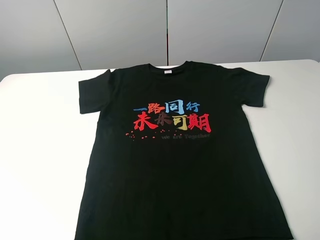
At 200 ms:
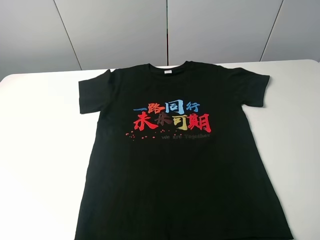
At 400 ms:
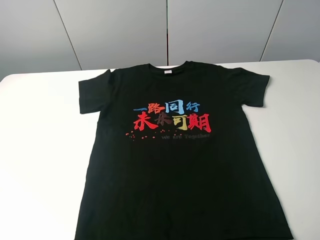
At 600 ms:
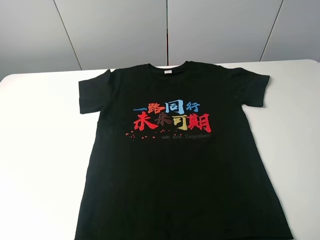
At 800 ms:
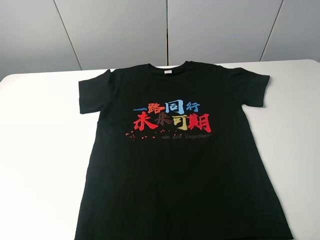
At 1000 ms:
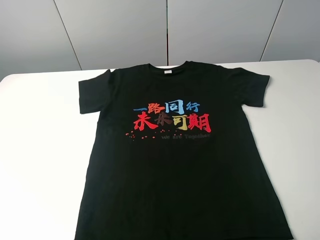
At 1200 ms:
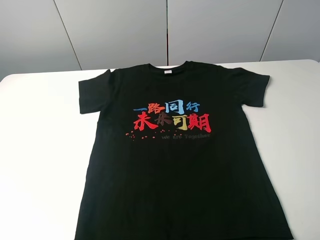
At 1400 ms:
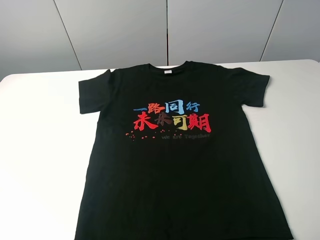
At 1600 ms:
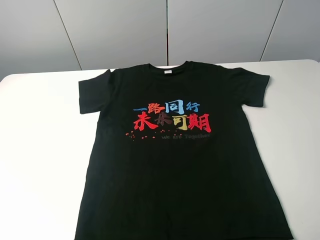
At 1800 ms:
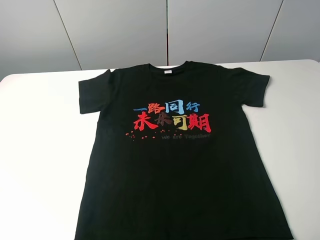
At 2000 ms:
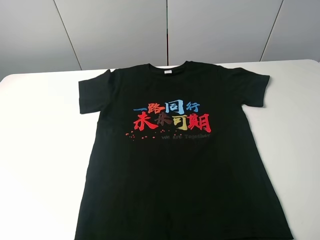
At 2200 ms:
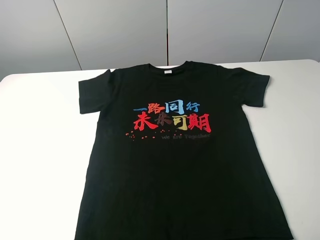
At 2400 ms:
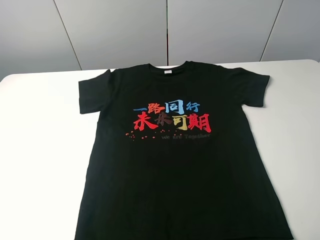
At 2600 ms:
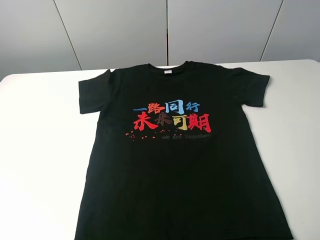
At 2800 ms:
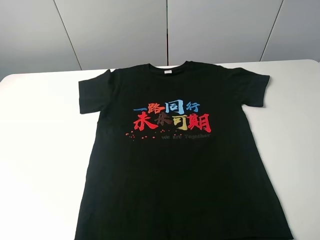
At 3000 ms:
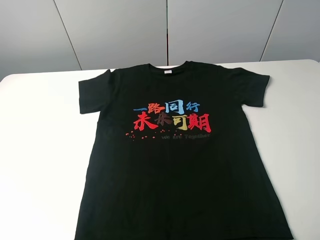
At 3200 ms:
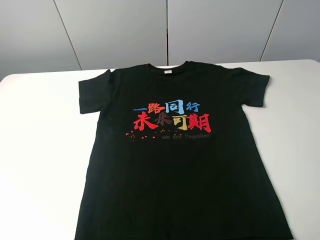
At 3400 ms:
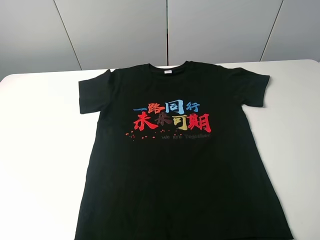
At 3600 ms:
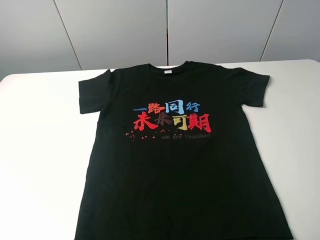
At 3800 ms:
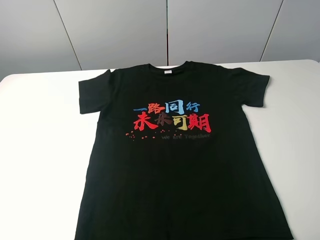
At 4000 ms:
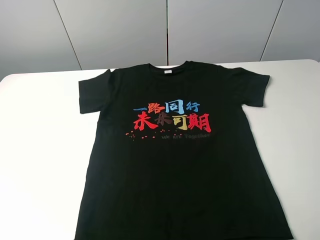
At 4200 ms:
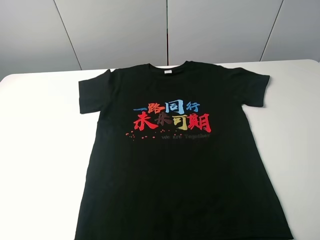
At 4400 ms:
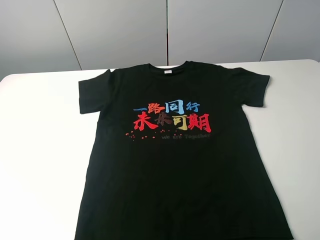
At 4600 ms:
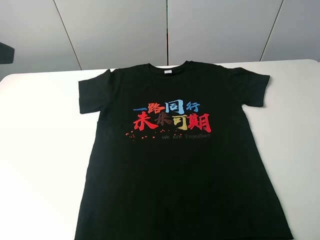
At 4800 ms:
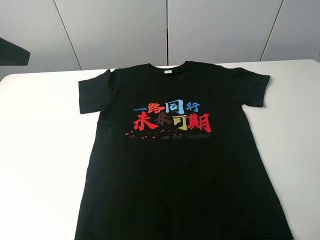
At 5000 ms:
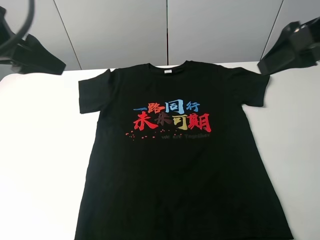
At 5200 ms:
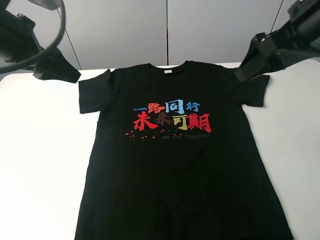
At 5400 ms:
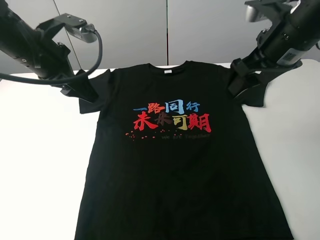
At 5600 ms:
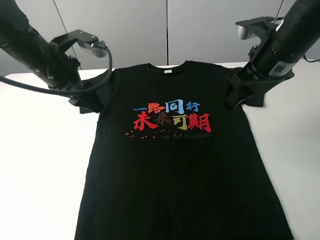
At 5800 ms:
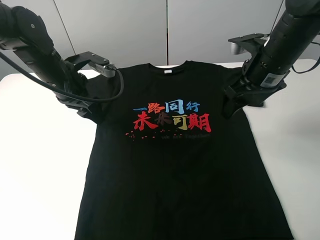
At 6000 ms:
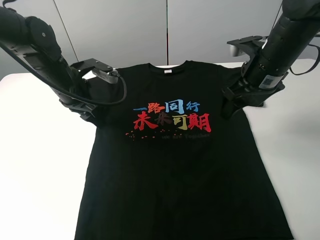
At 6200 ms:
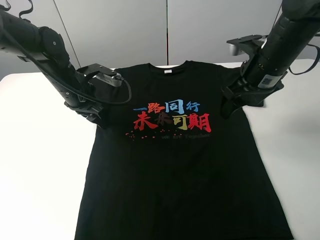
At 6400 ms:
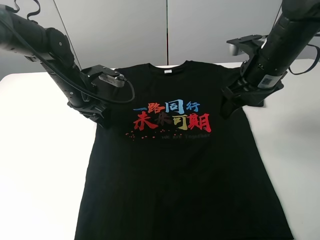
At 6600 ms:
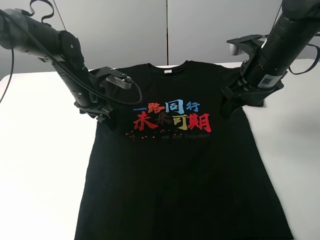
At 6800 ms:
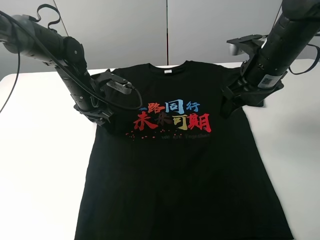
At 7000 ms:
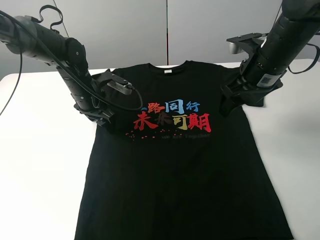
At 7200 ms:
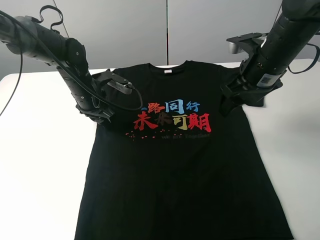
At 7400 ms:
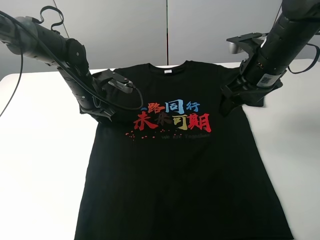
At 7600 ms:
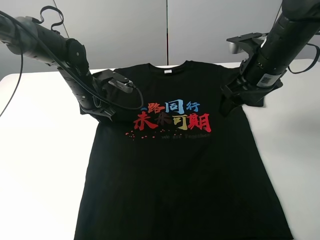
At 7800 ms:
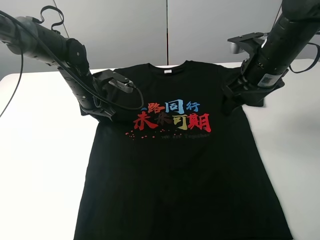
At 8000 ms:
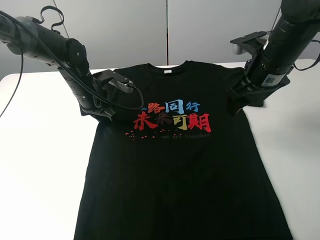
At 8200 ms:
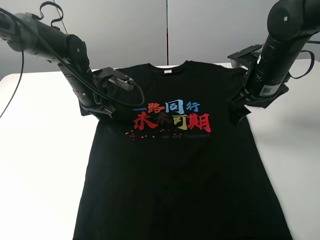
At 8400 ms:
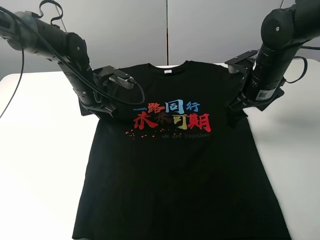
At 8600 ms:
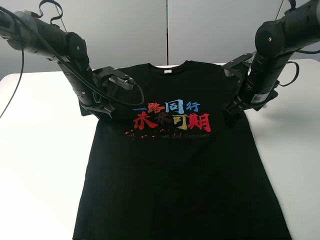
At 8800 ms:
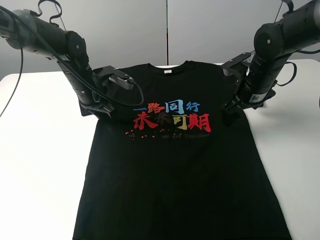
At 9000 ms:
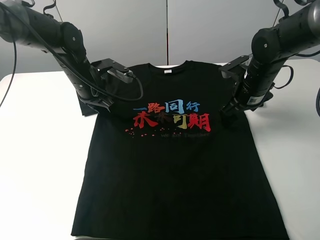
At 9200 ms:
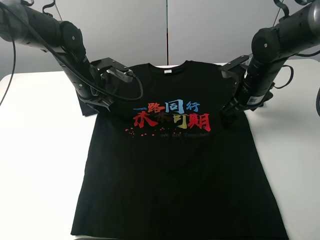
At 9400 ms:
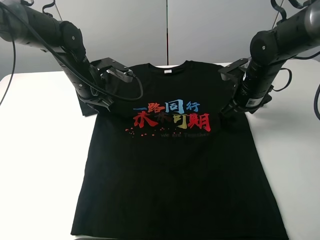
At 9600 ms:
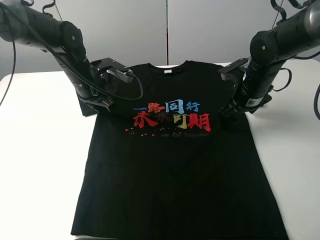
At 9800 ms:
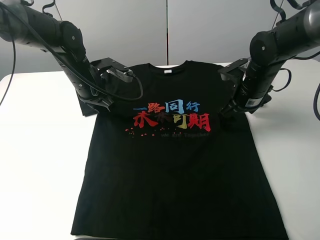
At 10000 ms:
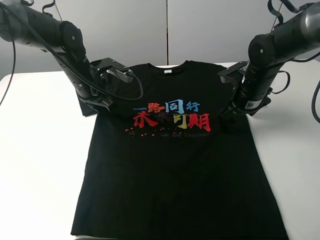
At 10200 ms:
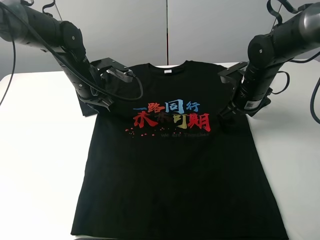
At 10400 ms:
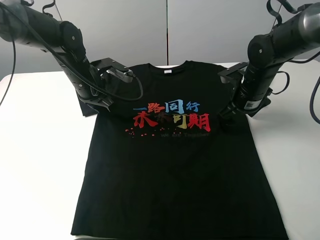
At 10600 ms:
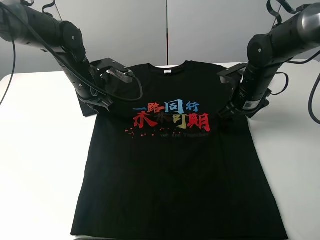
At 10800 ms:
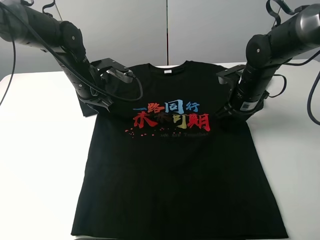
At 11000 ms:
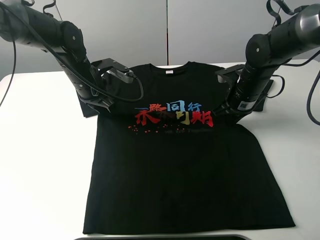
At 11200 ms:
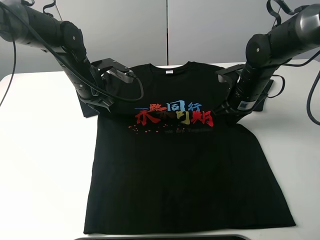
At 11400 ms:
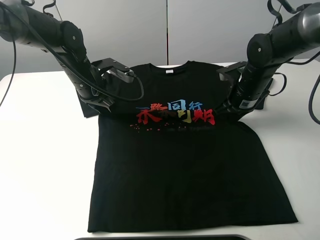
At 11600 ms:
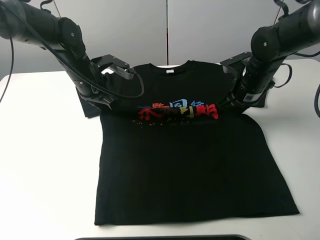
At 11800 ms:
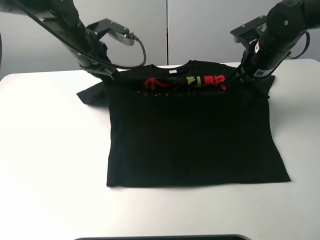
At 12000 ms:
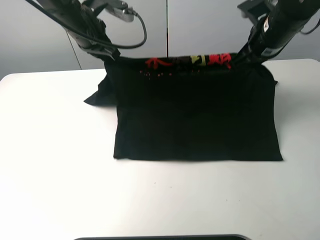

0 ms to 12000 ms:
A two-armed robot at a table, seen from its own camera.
Task of the whole recording: fold the clothes on the table.
0 ms to 3000 ms: Both grippers stay about where they are.
4400 ms to 6000 ms: The right gripper moves forward and downward, some 25 cm, while the left gripper moves forward, downward and to the right, roughly 30 cm.
6000 ms to 7600 ms: The left gripper shifts by roughly 5 cm, and closes up.
7600 ms to 9000 ms: The right gripper is displaced downward by roughly 10 cm.
9000 ms to 10400 ms: The grippers stay close to where they were, moving slightly.
10400 ms to 12000 ms: The two grippers go some 15 cm upward. The right gripper closes up.

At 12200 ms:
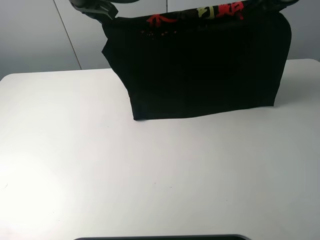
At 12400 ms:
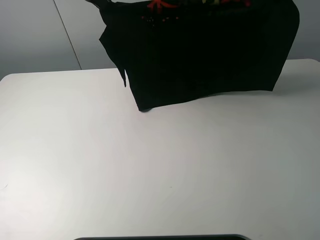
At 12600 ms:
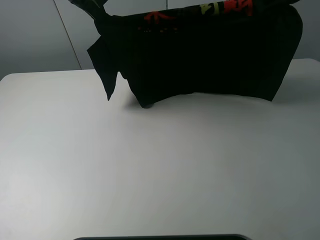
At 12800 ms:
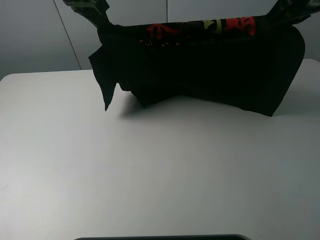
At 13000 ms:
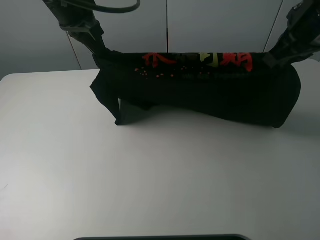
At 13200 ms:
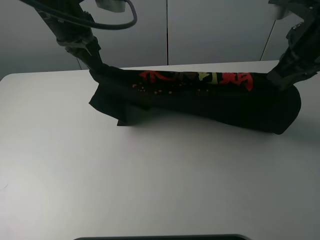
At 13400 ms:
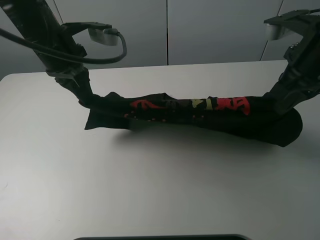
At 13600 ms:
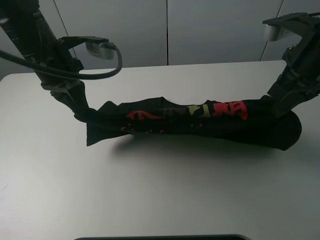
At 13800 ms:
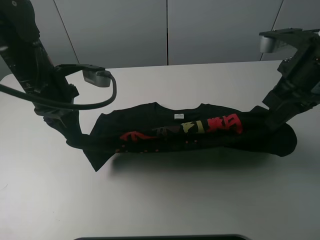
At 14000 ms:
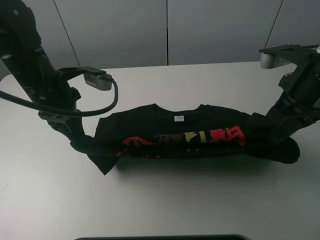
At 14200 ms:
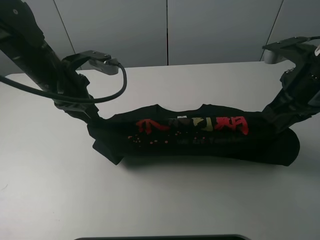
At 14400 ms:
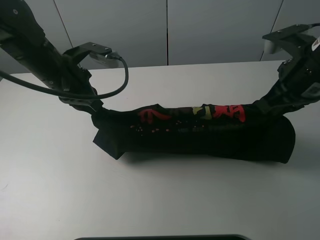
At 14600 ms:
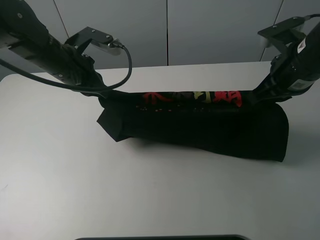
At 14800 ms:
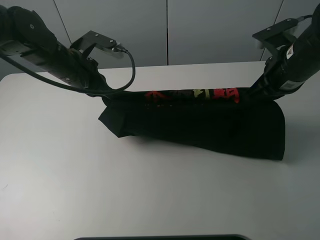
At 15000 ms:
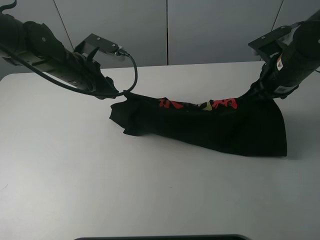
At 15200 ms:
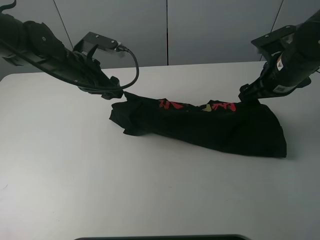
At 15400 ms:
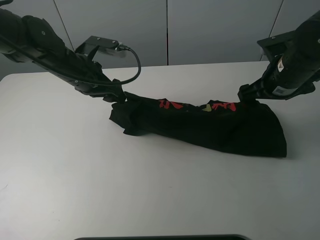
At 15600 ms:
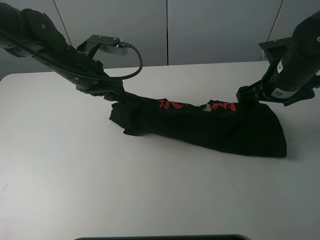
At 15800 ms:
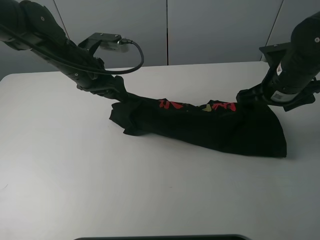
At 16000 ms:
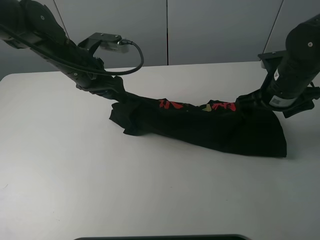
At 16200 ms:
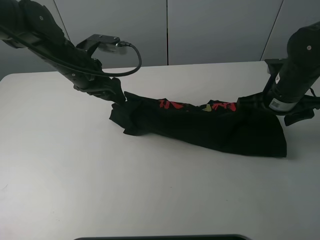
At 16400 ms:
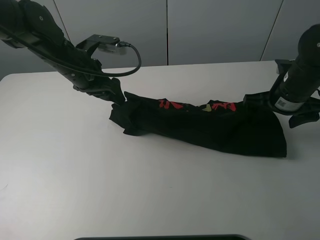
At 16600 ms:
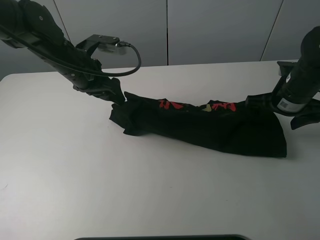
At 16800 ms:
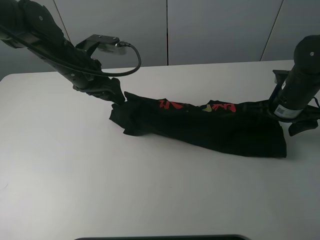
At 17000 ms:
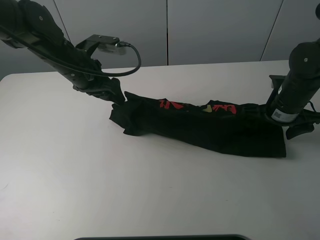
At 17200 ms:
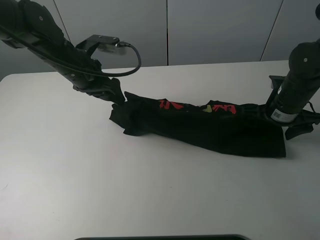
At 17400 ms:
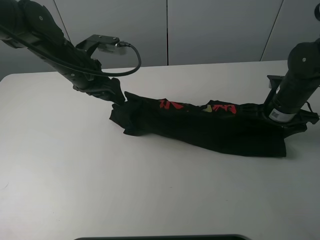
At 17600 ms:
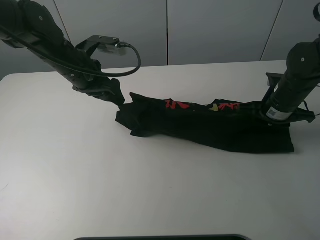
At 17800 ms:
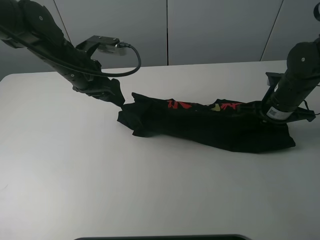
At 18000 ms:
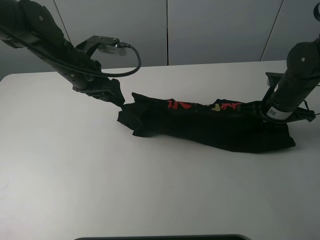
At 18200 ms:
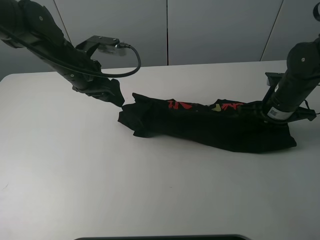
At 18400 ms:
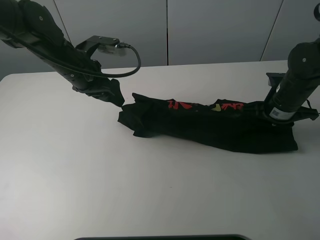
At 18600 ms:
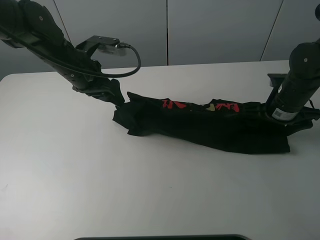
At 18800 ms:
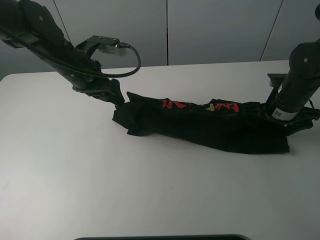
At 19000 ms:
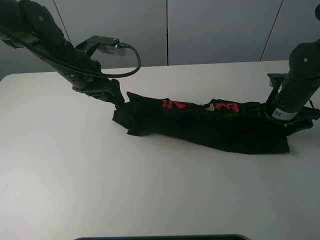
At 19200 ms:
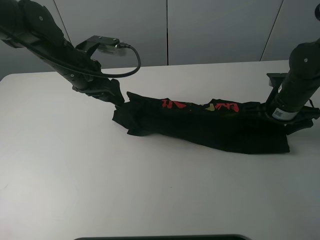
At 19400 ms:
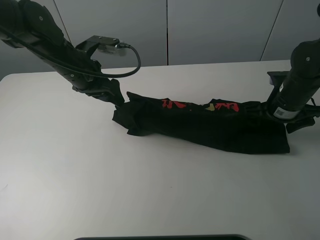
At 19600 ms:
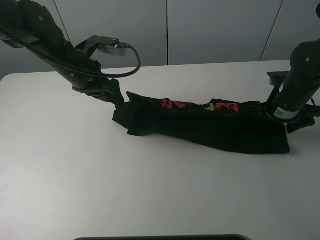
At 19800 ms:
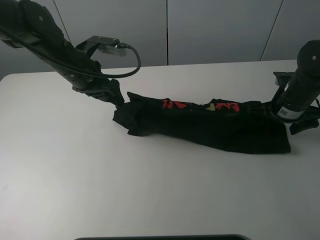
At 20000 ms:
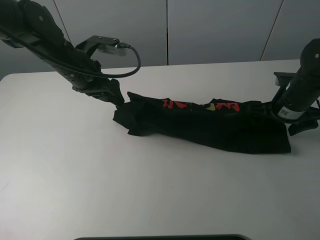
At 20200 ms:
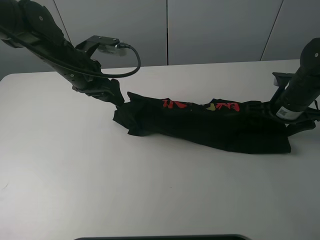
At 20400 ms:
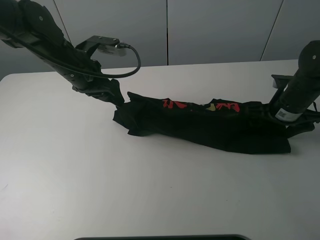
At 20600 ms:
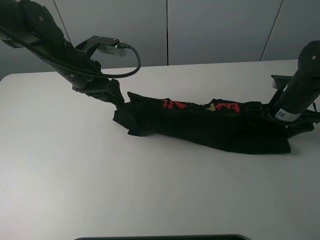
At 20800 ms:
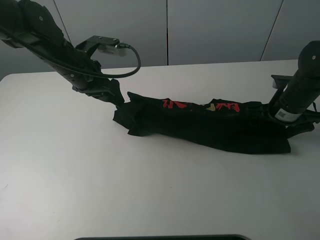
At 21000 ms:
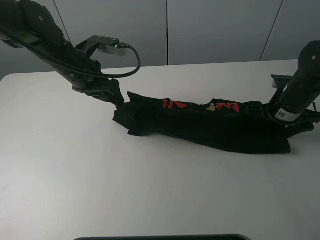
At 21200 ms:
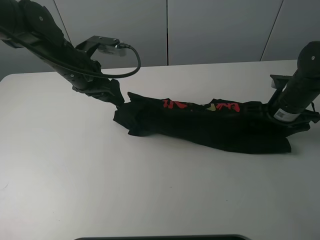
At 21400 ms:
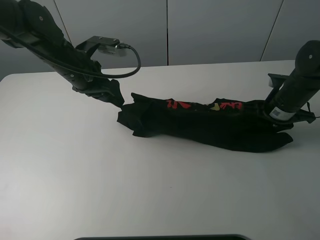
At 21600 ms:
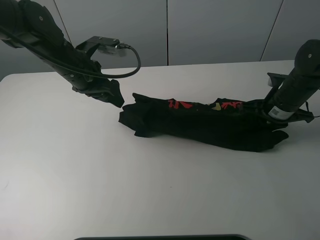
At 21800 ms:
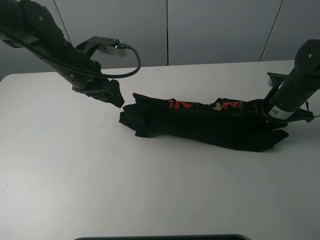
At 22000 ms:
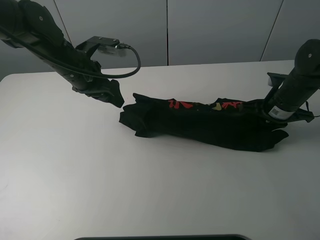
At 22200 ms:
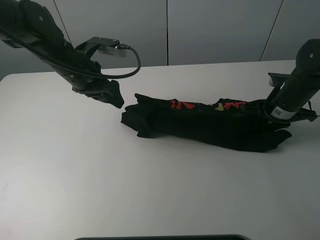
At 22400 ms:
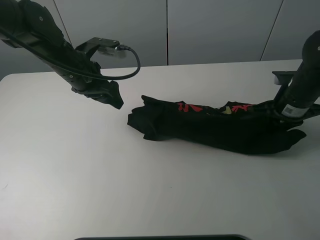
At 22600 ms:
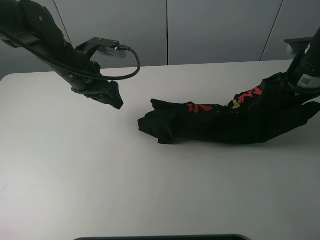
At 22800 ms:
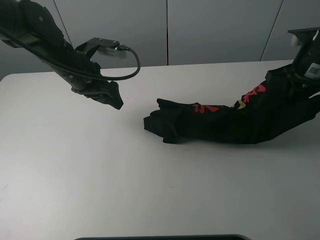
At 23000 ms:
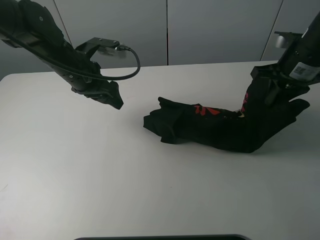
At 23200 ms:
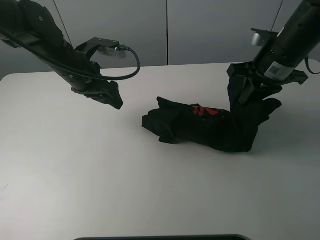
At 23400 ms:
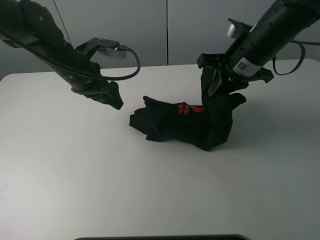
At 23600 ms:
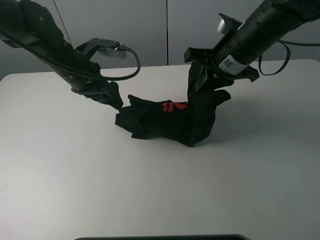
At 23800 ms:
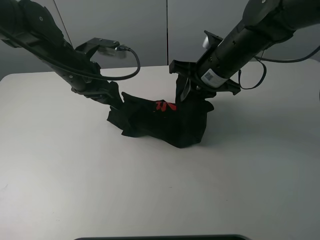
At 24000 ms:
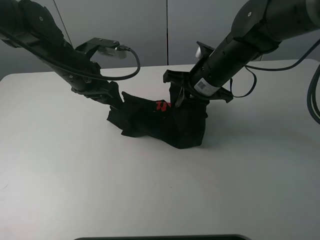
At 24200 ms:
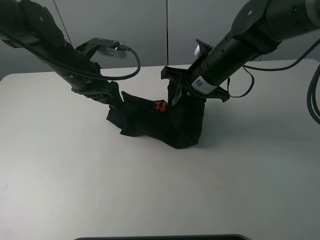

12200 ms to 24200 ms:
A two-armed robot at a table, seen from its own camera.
Task of the whole recording: fold the clothes on the table.
Step, 12600 ms to 15800 ms: Fold the black T-shirt downward with the left gripper.
Step, 16000 ms to 22000 ms: Grasp the black T-shirt with the right gripper.
12200 ms to 13800 ms: The left gripper shifts roughly 20 cm backward and downward, while the right gripper goes roughly 15 cm backward.
13800 ms to 15200 ms: The left gripper heads forward, covering roughly 10 cm, and opens its fingers. Meanwhile the right gripper moves forward and downward, some 10 cm, and opens up.
15200 ms to 16600 ms: The right gripper moves some 5 cm.
16600 ms to 18200 ms: The right gripper closes its fingers.
18200 ms to 19800 ms: The right gripper opens.
19800 ms to 21200 ms: Both grippers stay put.
21200 ms to 22600 ms: The right gripper travels upward by some 10 cm, and closes up.
22600 ms to 24200 ms: The right gripper shifts about 20 cm to the left.
